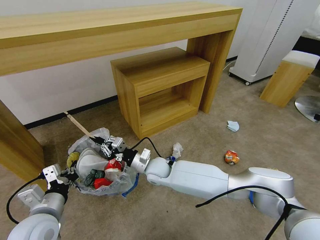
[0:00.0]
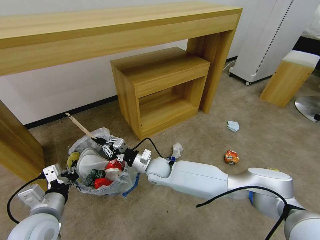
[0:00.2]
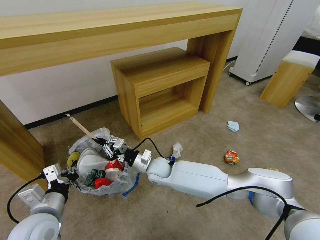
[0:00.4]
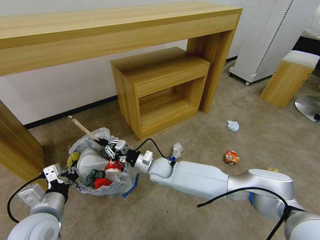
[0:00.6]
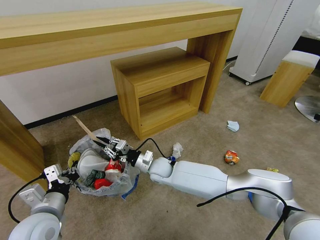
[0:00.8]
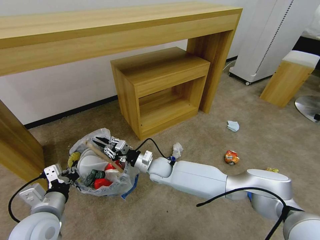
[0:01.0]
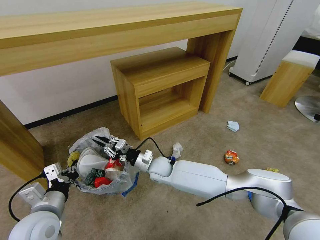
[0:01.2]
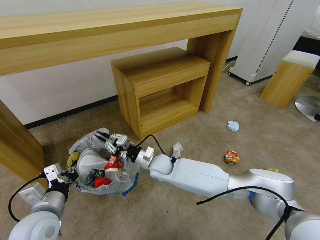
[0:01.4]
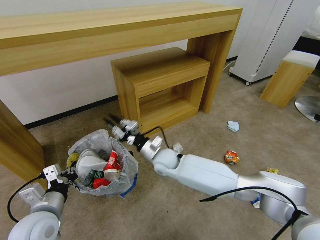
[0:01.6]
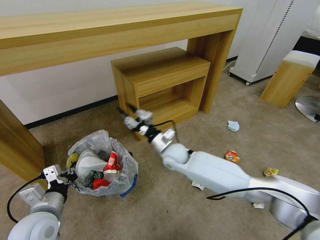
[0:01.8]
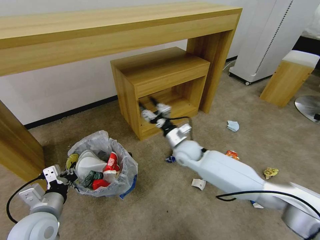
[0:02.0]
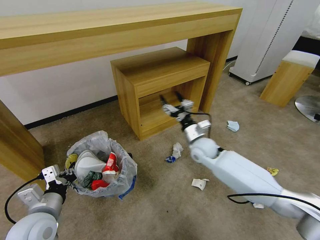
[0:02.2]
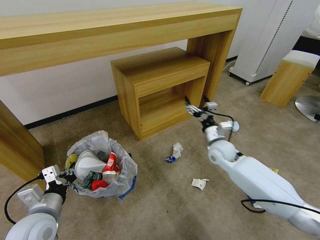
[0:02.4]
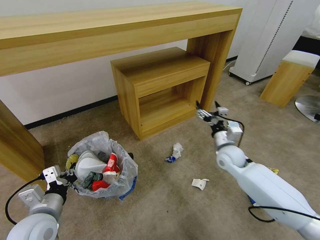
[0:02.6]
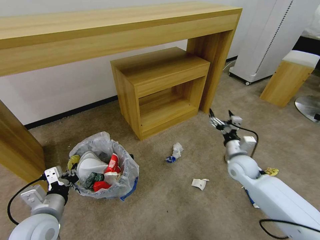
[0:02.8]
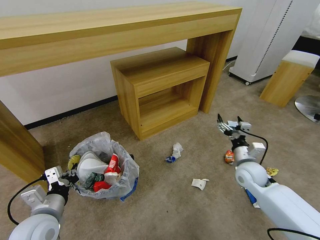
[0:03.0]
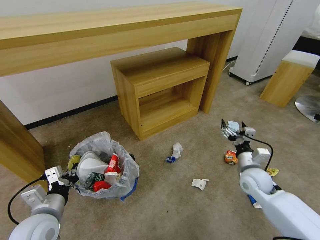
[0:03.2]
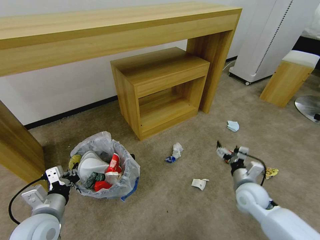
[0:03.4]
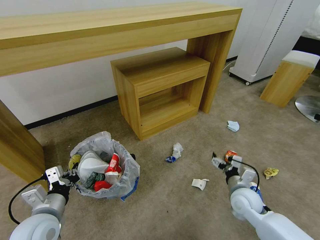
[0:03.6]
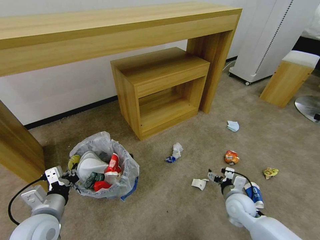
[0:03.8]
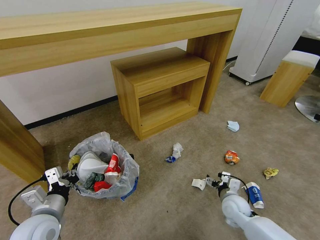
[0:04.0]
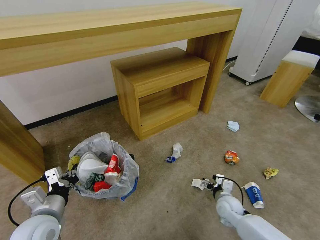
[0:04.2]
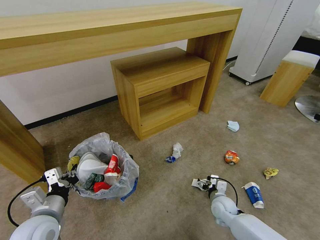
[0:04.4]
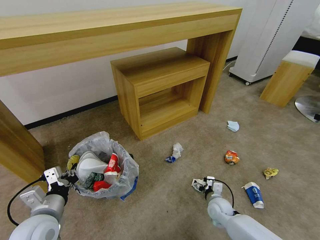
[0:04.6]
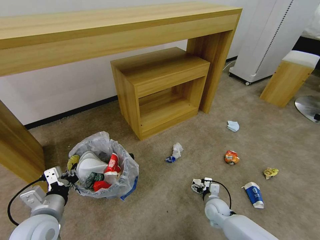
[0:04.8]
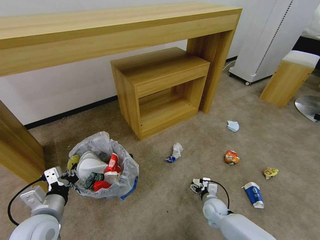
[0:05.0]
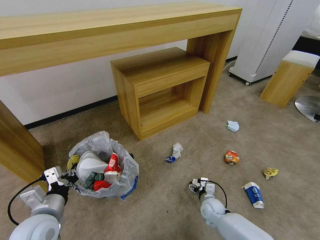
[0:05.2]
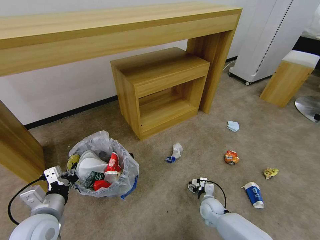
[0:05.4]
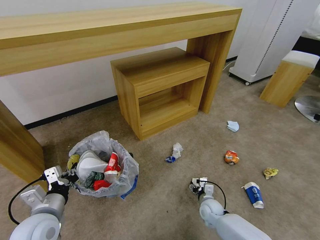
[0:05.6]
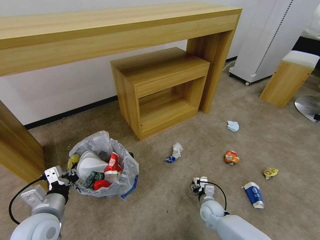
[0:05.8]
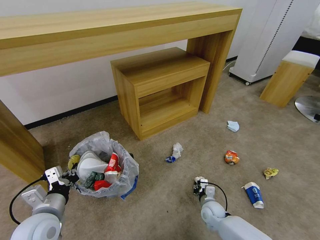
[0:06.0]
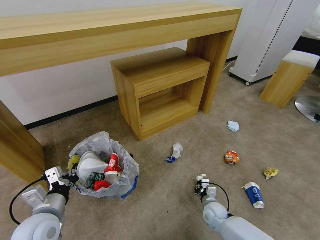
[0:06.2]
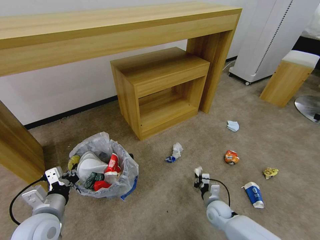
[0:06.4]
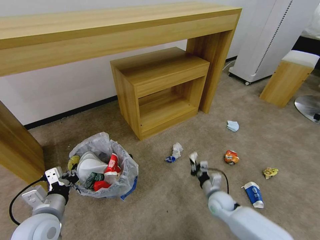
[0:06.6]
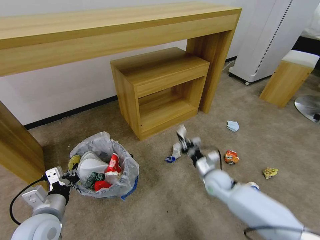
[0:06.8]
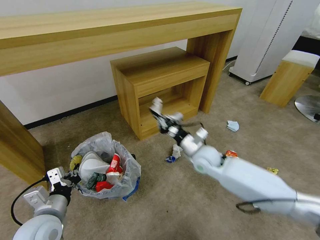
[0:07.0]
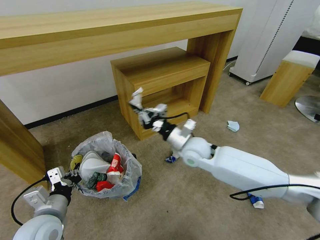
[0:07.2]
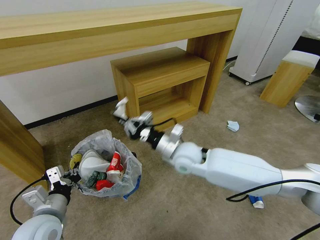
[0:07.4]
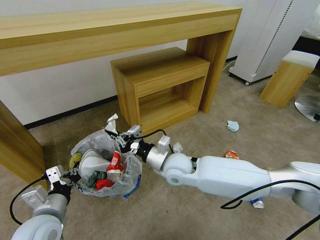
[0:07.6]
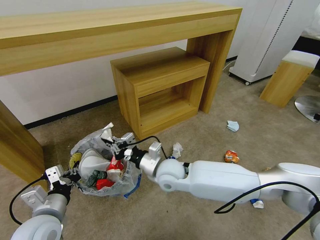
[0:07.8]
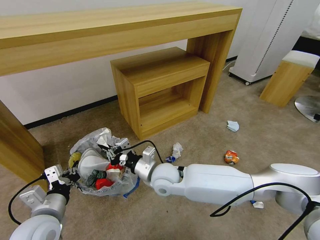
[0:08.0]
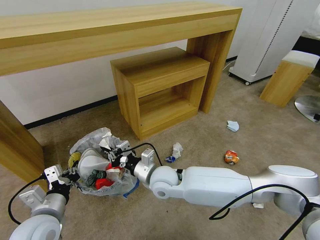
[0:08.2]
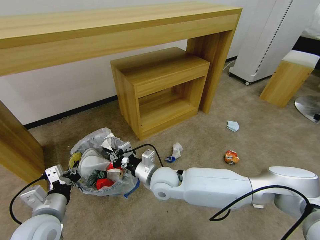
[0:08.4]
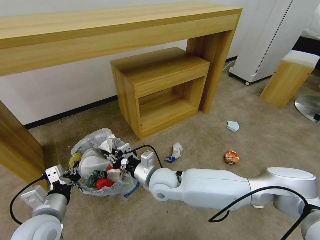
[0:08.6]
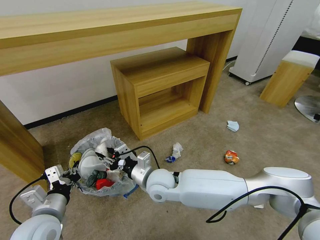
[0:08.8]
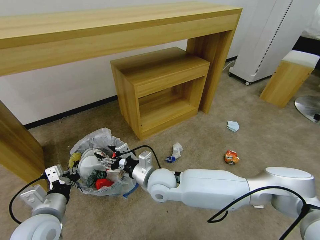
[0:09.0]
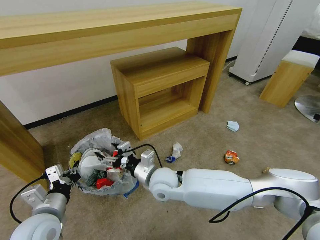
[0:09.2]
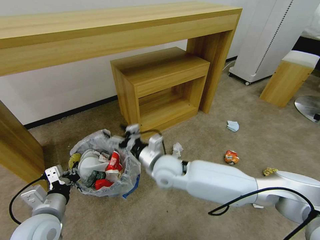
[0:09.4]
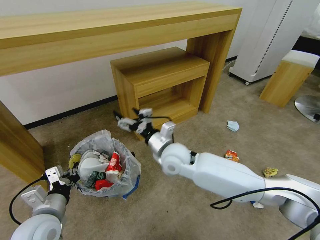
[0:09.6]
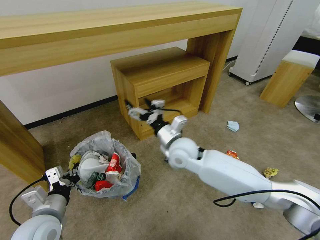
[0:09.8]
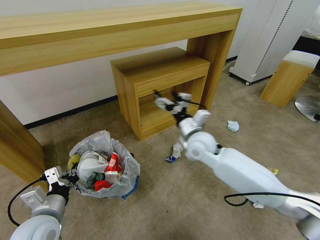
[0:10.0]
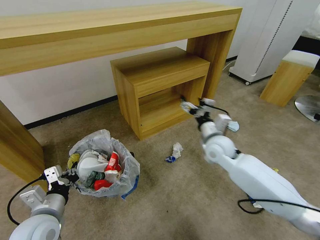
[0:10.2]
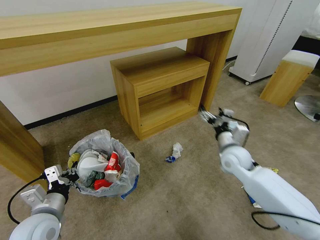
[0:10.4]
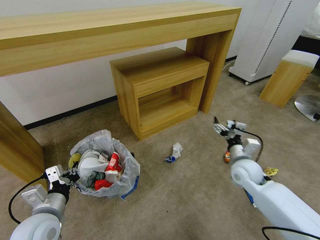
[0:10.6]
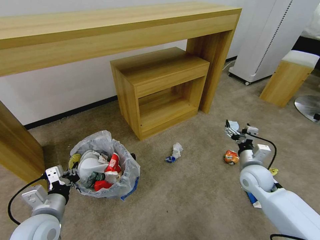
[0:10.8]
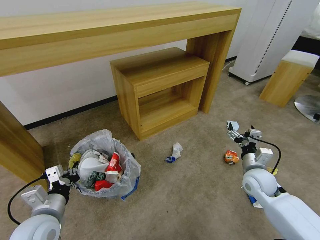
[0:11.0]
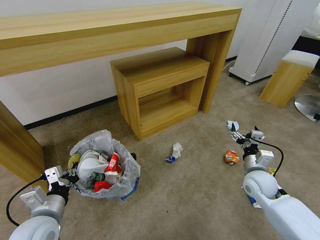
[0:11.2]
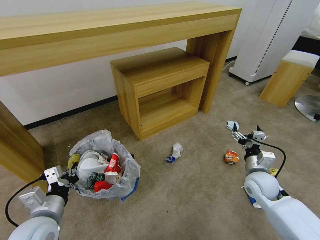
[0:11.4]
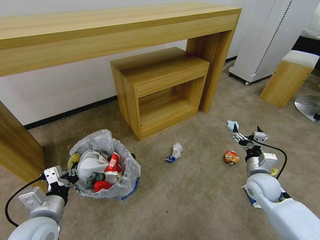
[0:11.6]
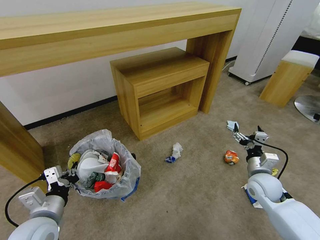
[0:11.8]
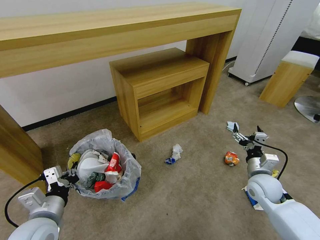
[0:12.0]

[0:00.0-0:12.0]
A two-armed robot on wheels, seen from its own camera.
Task of the whole recording: Pick up the trash bin and place the garbage on the floor into it.
0:00.0 to 0:01.6: The grippers stay close to where they were, moving slightly.
0:01.6 to 0:03.0: The right gripper heads to the right, covering approximately 30 cm, and opens up.
0:03.0 to 0:04.4: The right gripper shifts approximately 15 cm downward.
0:04.4 to 0:06.0: The right gripper heads downward, covering roughly 5 cm, and closes its fingers.
0:06.0 to 0:07.6: The right gripper moves upward and to the left, some 35 cm.
0:07.6 to 0:09.0: The right gripper travels to the left by about 5 cm, and opens up.
0:09.0 to 0:10.4: The right gripper shifts roughly 25 cm to the right, and opens its fingers.
0:10.4 to 0:12.0: The right gripper heads to the right, backward and downward, covering about 15 cm.

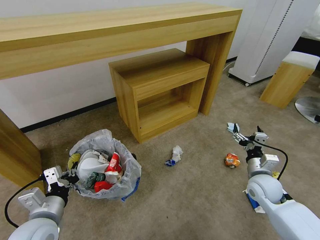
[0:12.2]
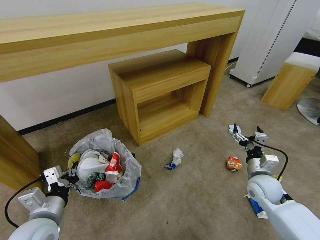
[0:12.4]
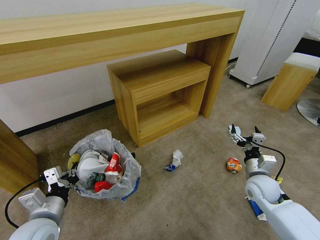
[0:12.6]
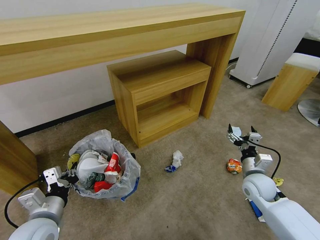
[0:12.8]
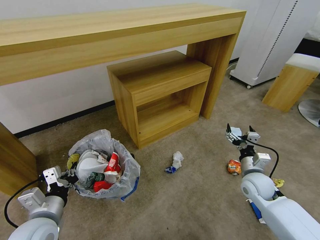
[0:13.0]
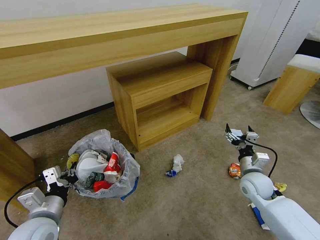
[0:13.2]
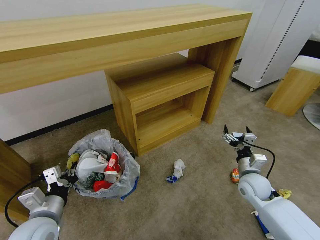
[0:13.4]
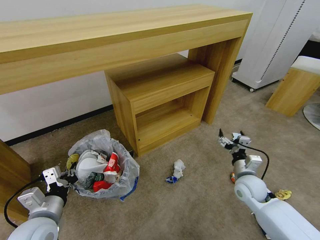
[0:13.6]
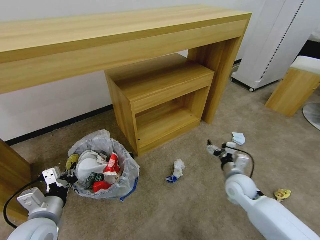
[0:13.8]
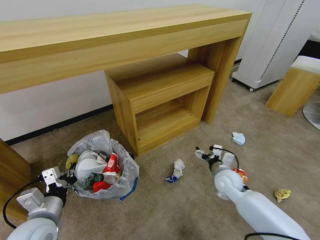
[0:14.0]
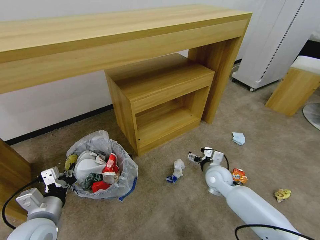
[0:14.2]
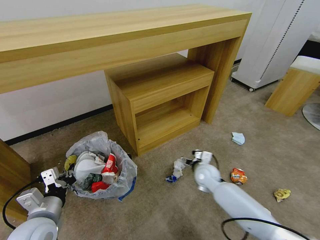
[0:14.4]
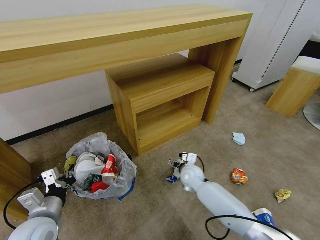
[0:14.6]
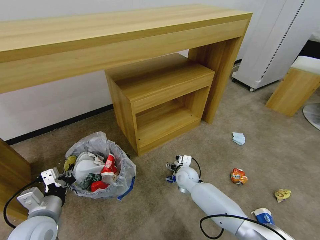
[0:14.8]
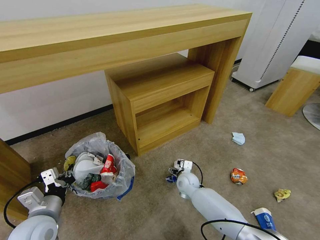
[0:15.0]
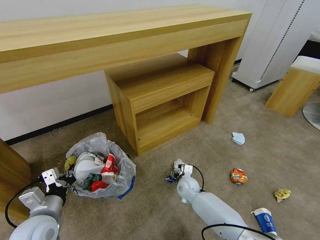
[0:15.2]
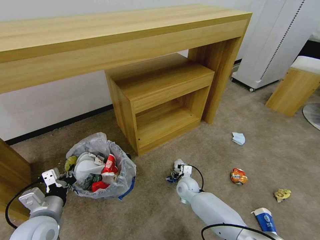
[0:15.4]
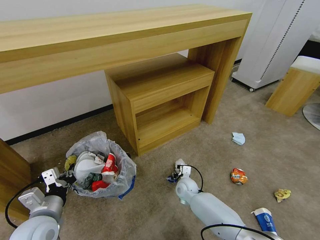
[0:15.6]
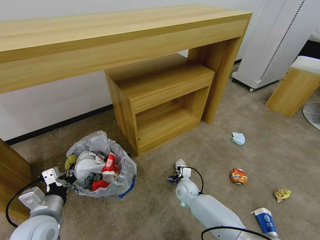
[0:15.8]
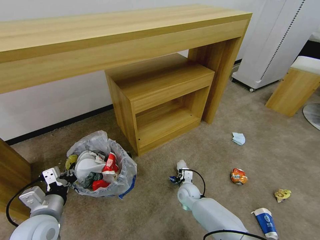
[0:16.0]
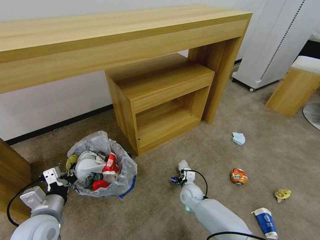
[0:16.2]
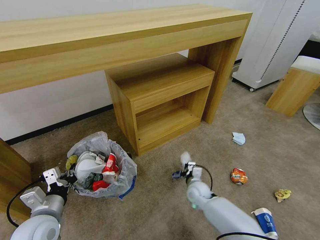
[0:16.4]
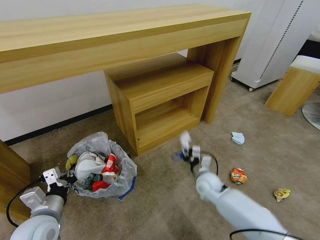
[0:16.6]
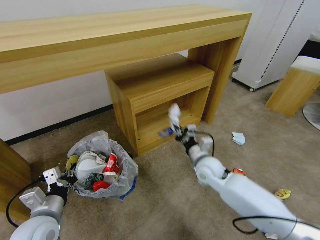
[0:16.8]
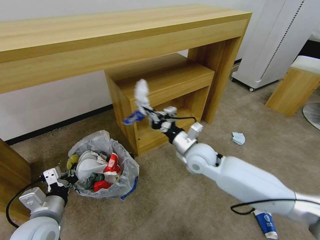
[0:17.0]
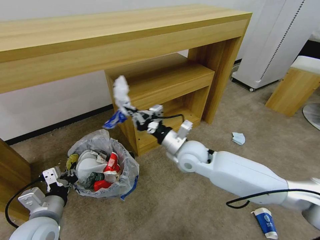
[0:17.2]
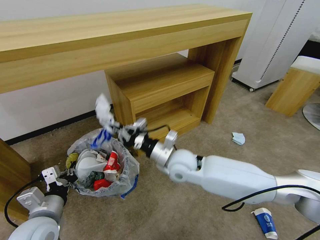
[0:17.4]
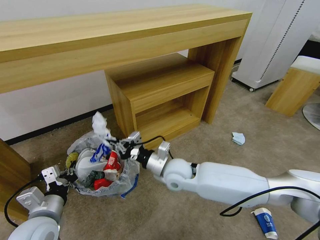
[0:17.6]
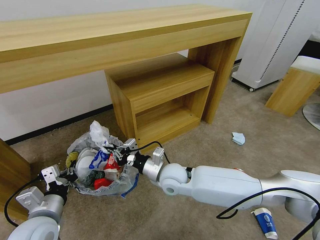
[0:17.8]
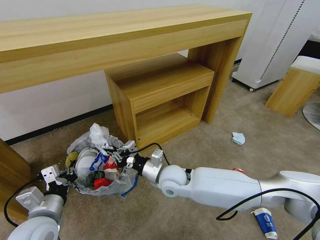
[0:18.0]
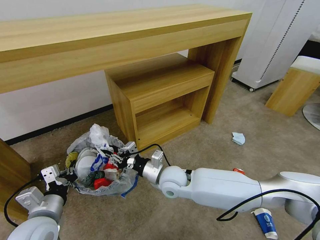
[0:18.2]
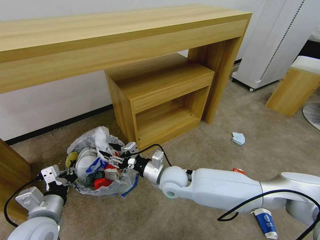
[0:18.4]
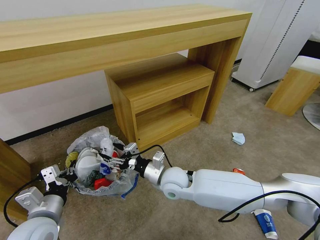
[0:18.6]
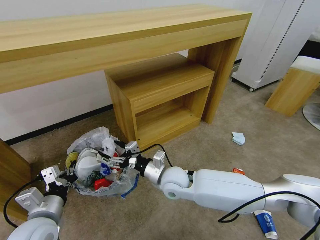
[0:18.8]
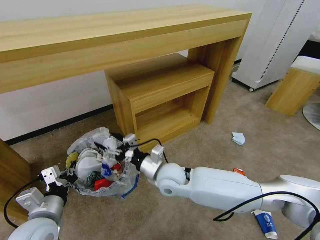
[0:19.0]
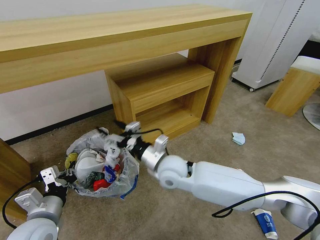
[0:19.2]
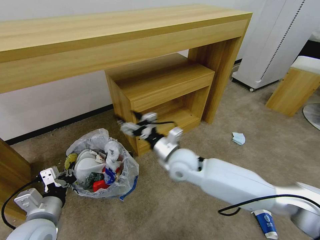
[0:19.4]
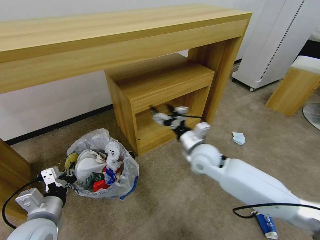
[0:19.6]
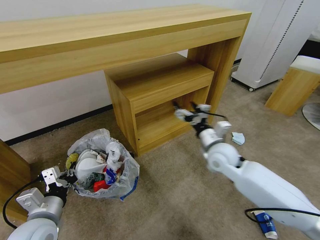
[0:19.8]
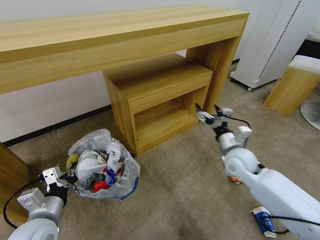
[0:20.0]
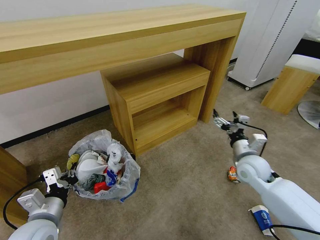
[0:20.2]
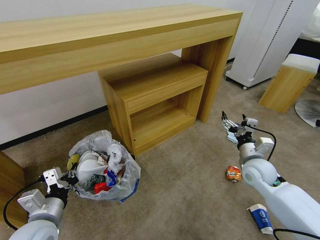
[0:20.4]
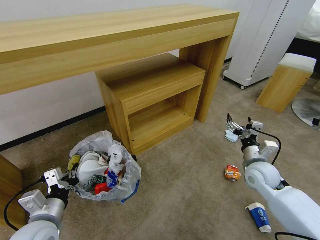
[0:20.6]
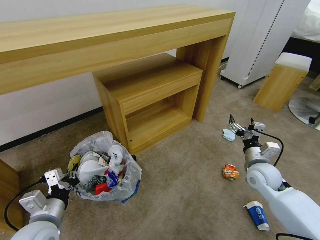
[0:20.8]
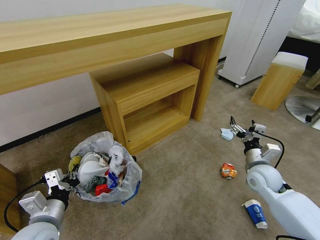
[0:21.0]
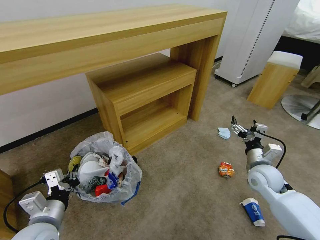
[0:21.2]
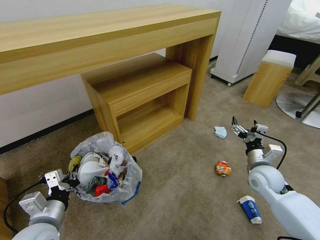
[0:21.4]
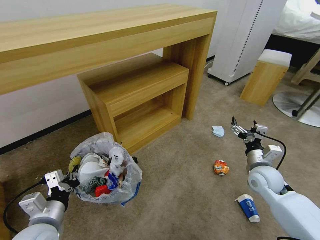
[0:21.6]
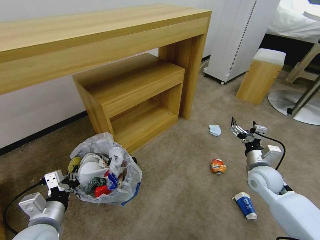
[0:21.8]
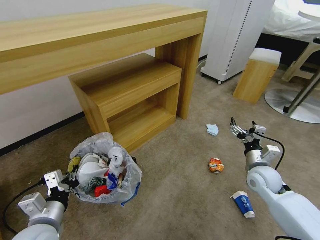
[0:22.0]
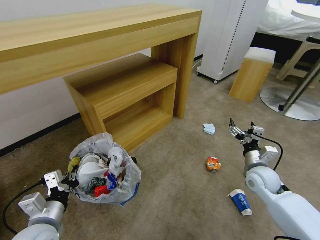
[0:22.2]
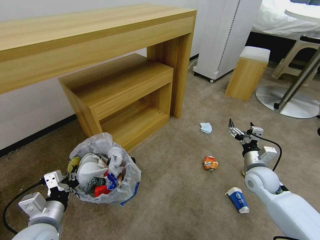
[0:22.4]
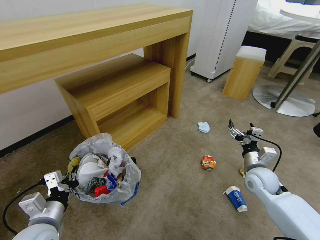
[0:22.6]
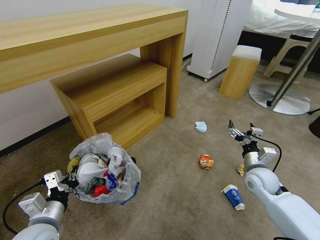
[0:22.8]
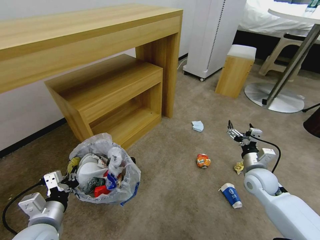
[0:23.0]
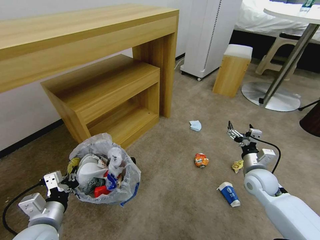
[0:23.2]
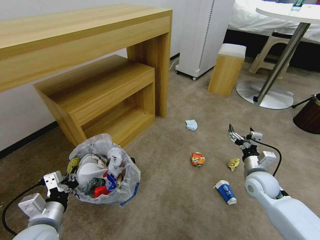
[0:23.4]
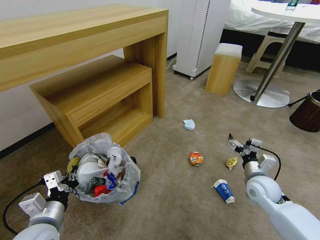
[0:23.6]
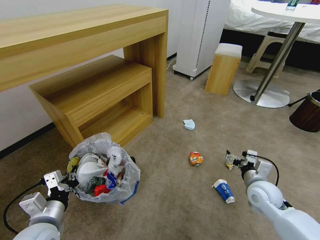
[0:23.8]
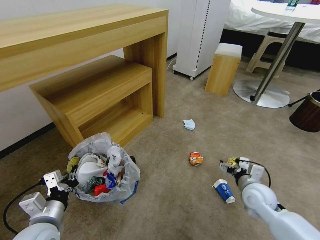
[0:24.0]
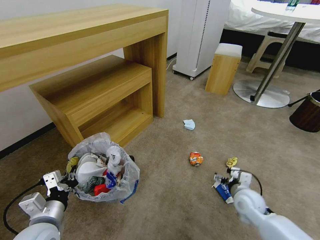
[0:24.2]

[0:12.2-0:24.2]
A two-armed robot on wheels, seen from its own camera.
Task of the whole recording: Pick up the trash bin and place the garbage on the floor into it.
0:12.2 to 0:13.8: The right gripper shifts about 5 cm to the left.
0:13.8 to 0:15.2: The right gripper goes about 20 cm to the left and downward.
0:15.2 to 0:16.6: The right gripper is displaced to the right and upward by some 10 cm, and closes its fingers.
0:16.6 to 0:18.2: The right gripper moves to the left and upward, about 20 cm.
0:18.2 to 0:19.8: The right gripper heads to the right, covering about 15 cm, and opens.
0:19.8 to 0:21.2: The right gripper heads to the right, covering roughly 15 cm.
0:22.6 to 0:24.2: The right gripper is displaced downward and backward by roughly 10 cm.
